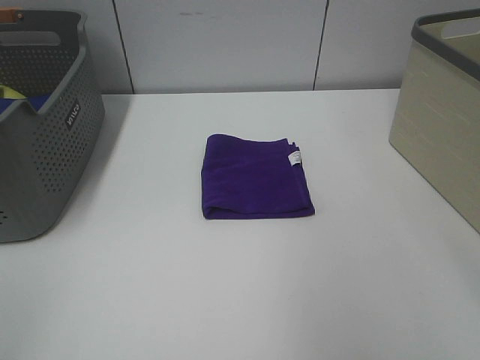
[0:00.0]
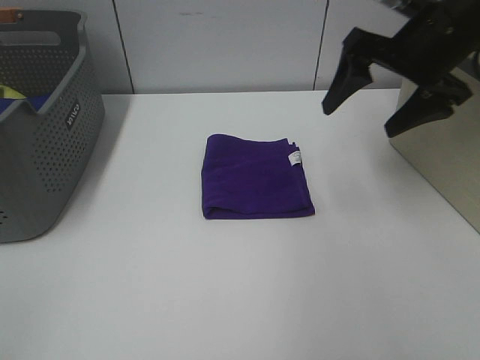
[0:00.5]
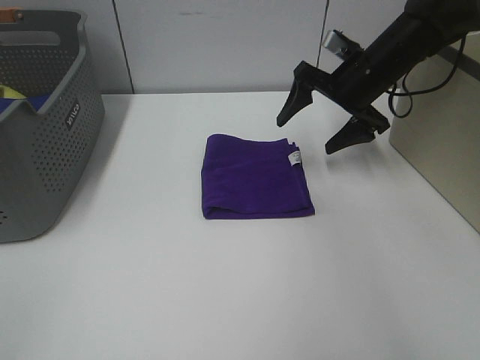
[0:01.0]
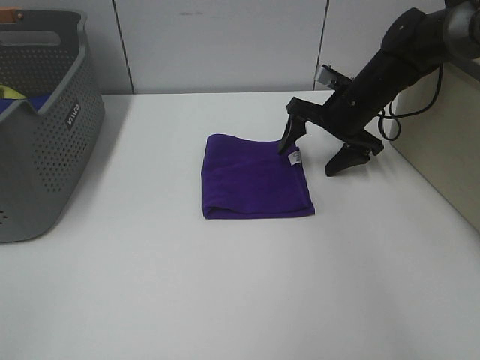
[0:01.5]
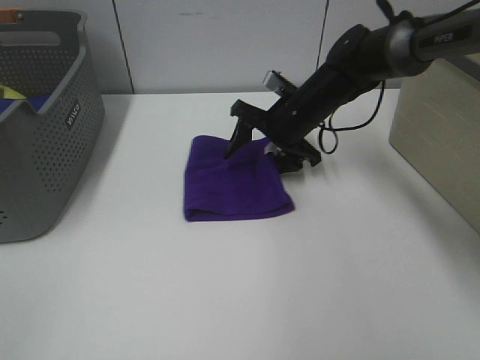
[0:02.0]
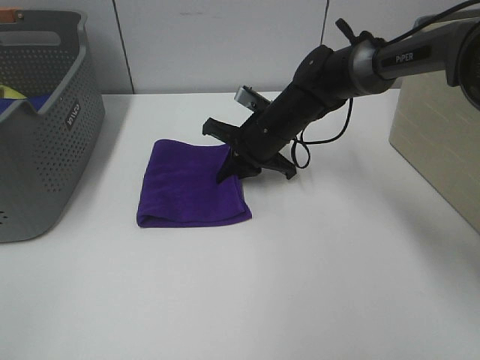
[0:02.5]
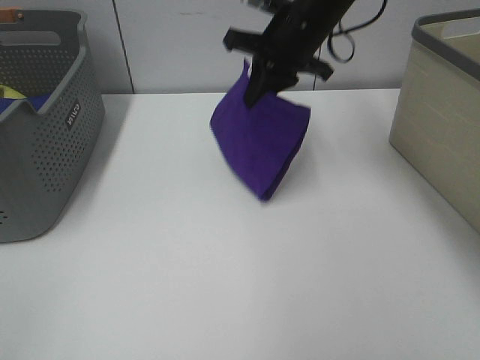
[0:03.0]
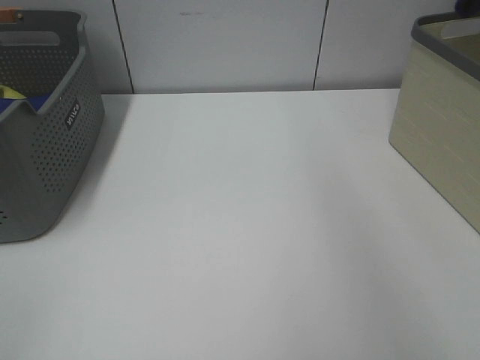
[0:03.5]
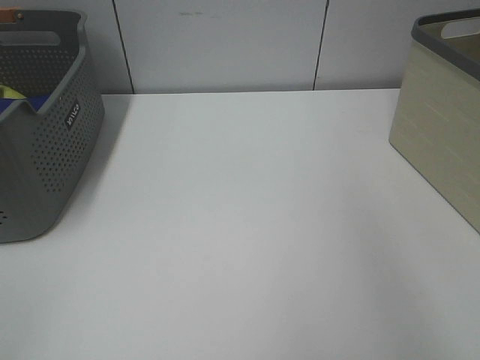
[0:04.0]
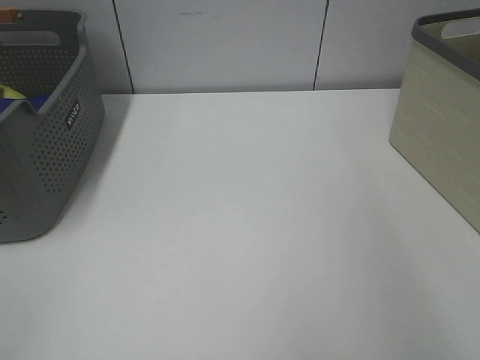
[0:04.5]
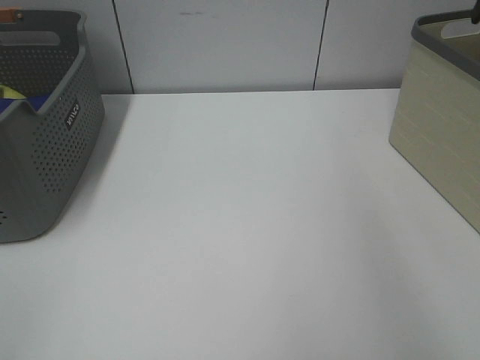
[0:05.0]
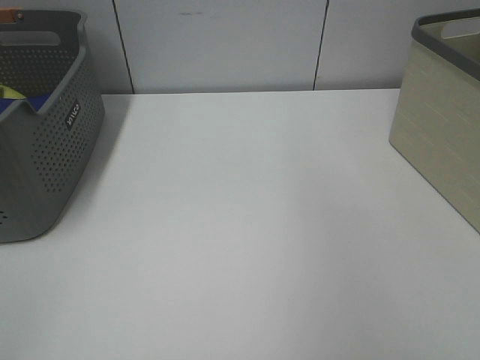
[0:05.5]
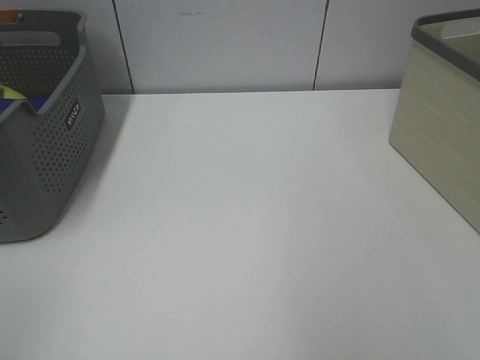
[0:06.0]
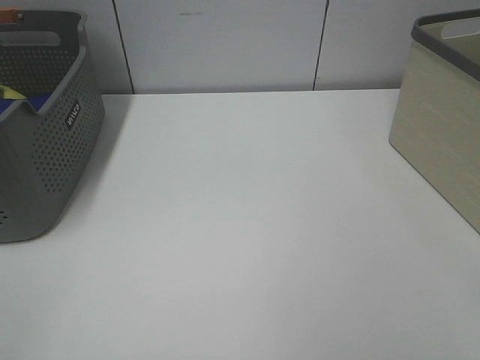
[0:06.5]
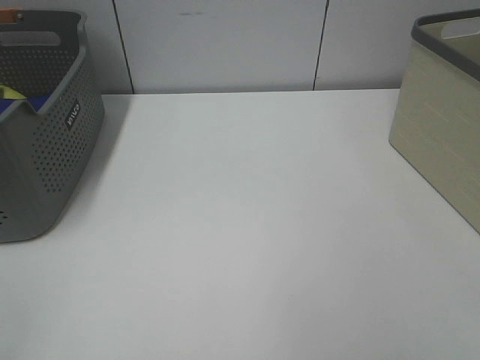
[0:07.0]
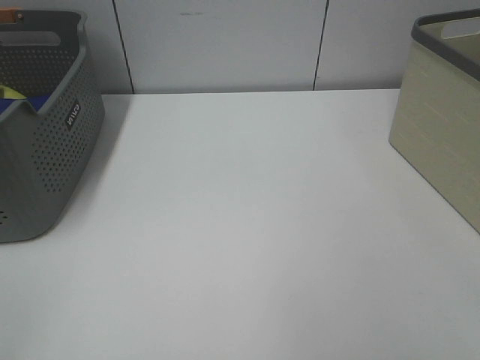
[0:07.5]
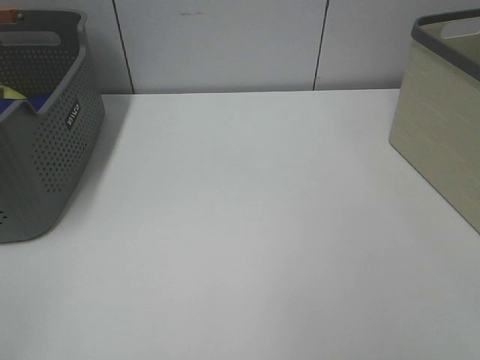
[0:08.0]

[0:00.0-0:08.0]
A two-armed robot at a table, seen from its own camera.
Step, 0:00.0 to 0:02.0: Right hand: grab the folded purple towel.
Step, 0:02.5 to 0:04.5: Right hand: place the purple towel in right basket.
0:00.0 to 0:02.0: The right gripper goes approximately 40 cm downward, forward and to the left.
0:02.0 to 0:04.0: The right gripper travels to the right and upward by some 40 cm, and closes its fingers.

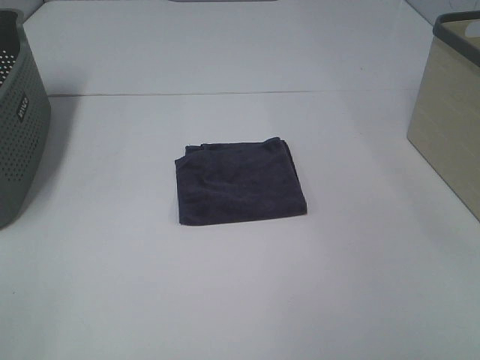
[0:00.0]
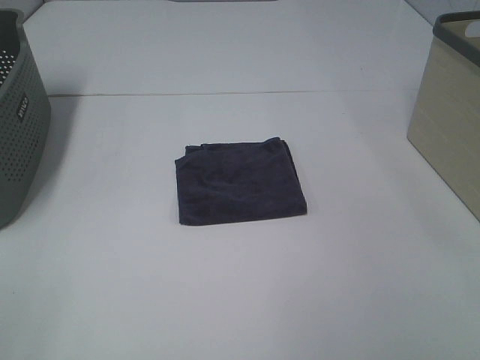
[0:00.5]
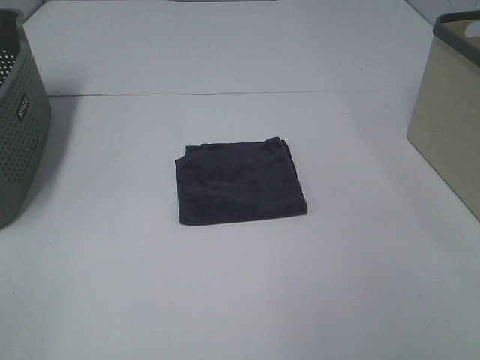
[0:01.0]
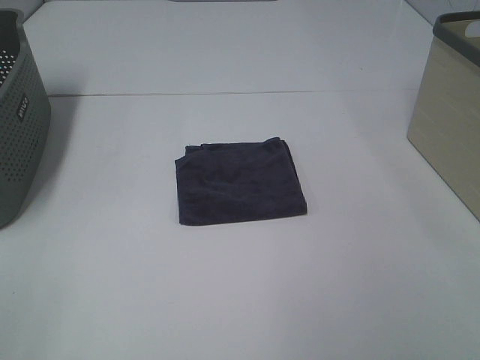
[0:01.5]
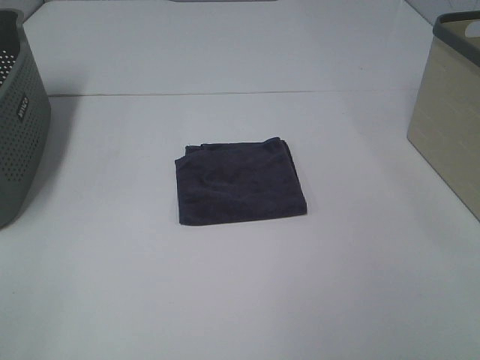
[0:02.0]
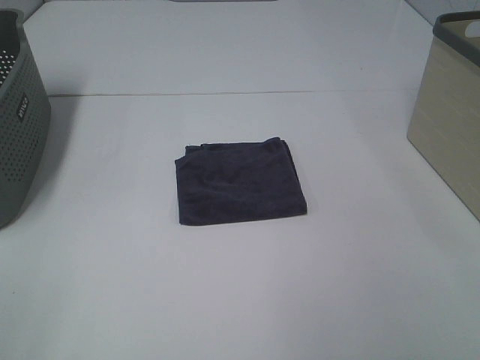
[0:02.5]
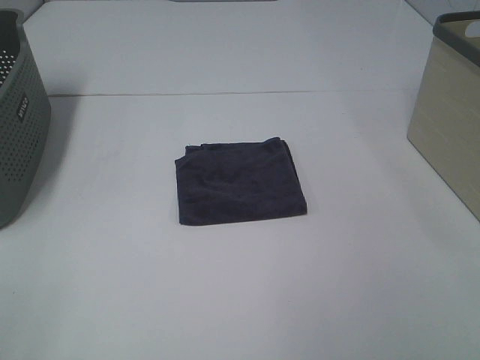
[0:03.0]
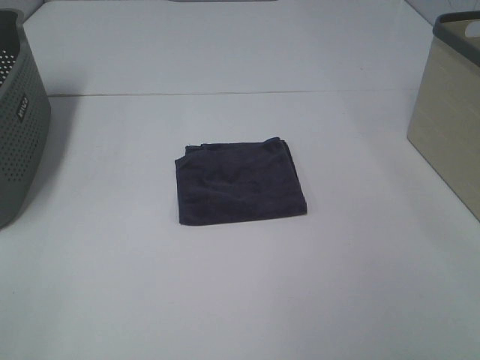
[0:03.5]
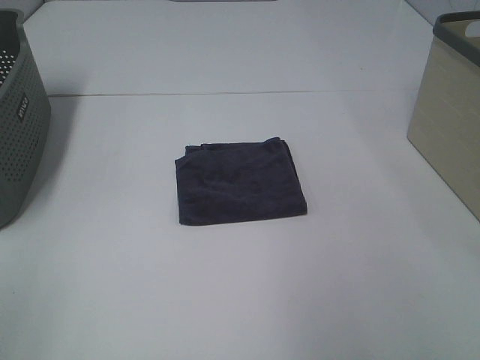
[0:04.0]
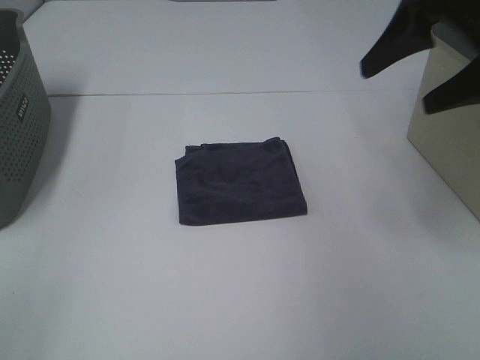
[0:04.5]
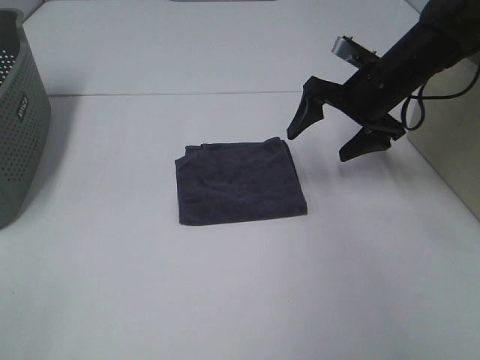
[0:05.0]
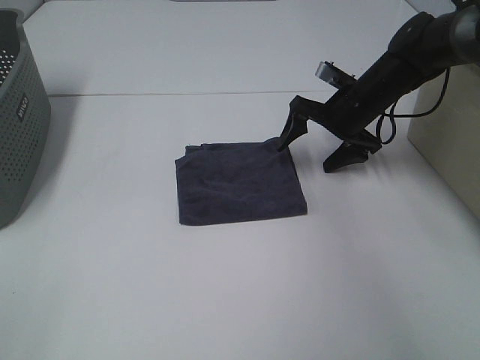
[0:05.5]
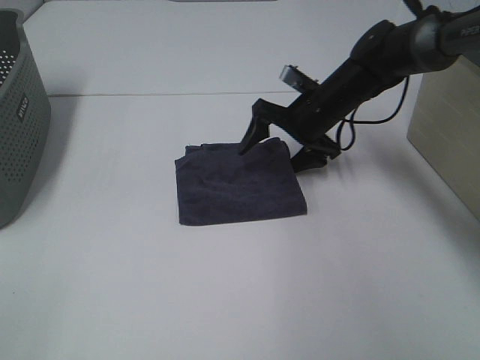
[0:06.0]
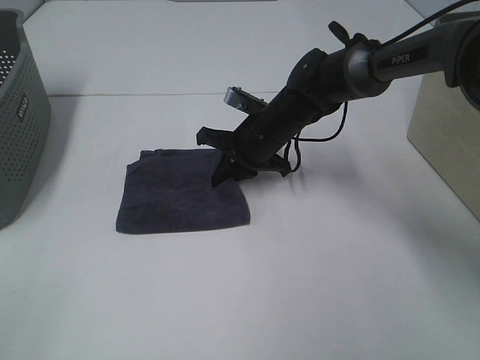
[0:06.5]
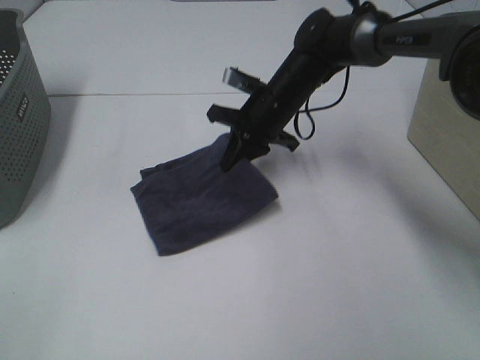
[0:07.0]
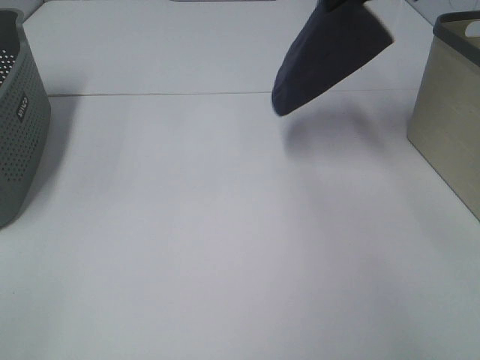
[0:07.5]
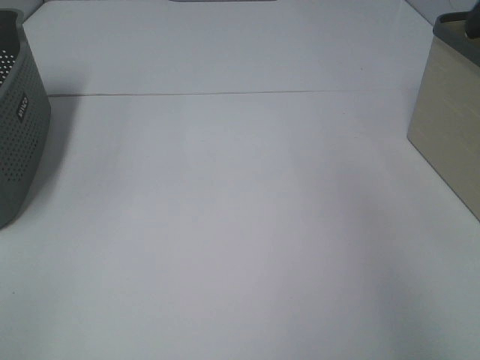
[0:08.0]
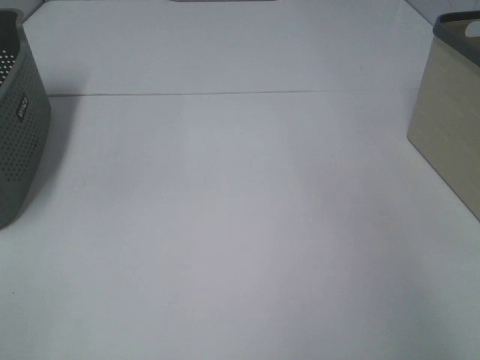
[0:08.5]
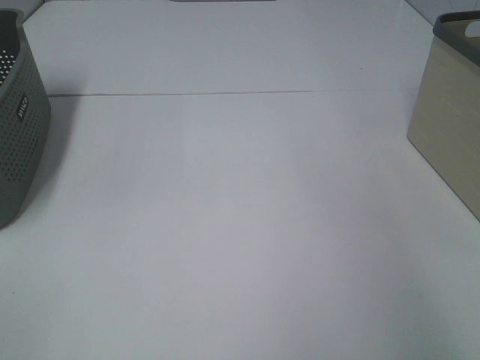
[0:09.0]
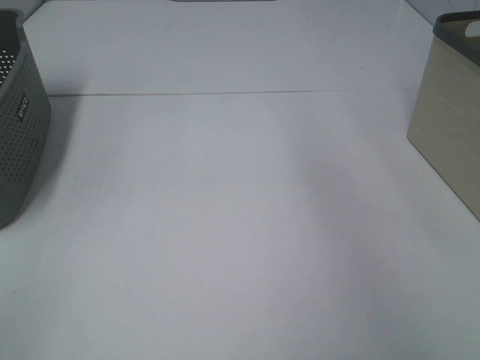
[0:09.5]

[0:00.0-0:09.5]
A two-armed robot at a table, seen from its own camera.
Step, 0:00.0 to 0:06.0: Right hand: grab the folded grey towel.
Step, 0:06.5 to 0:08.5: Right hand: place the grey towel in right basket.
0:00.0 to 0:02.0: Neither gripper changes place.
0:04.0 to 0:05.5: The right gripper shifts approximately 40 cm forward and downward.
0:05.5 to 0:07.5: The right gripper is displaced upward by approximately 25 cm, and closes.
0:07.5 to 0:09.5: The right gripper heads to the right, covering roughly 10 cm, and opens.

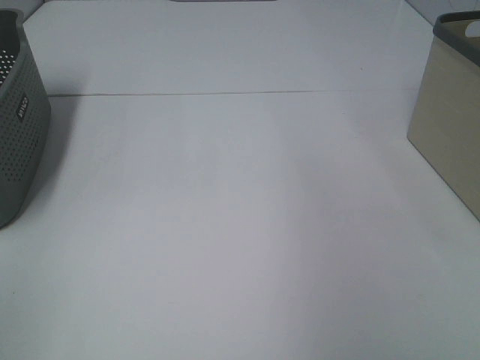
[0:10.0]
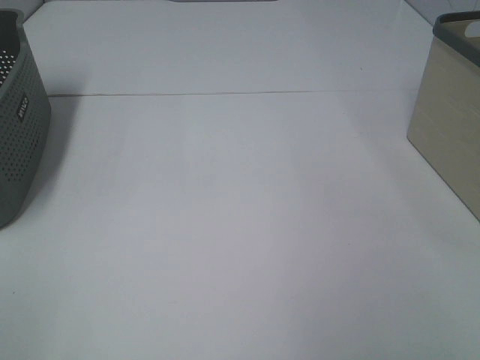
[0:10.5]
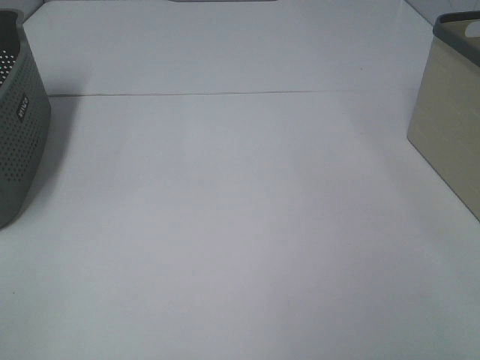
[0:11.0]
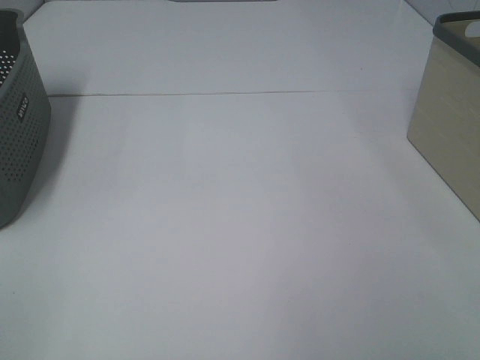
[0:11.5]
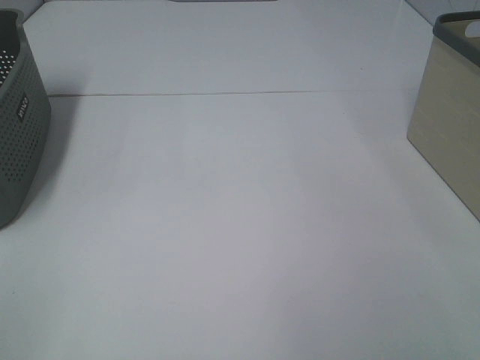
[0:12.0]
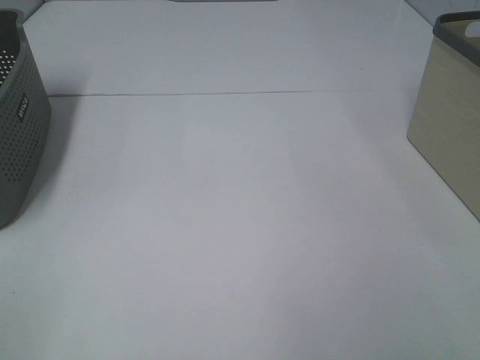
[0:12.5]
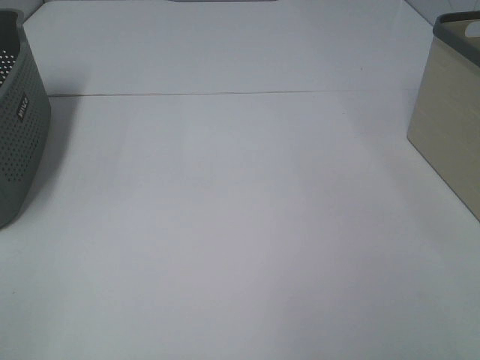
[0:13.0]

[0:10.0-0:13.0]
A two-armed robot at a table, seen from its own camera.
0:11.5 to 0:13.0: Both grippers stay about where they are.
